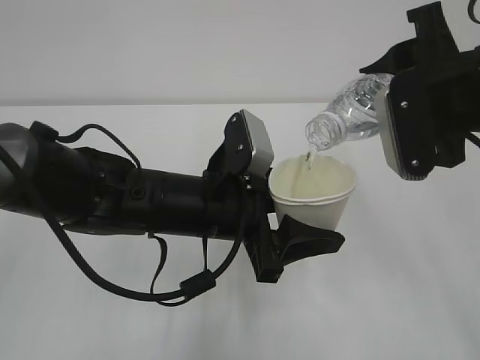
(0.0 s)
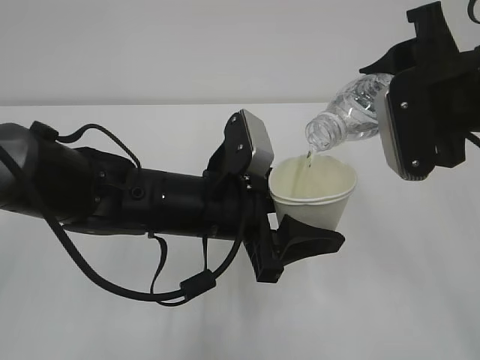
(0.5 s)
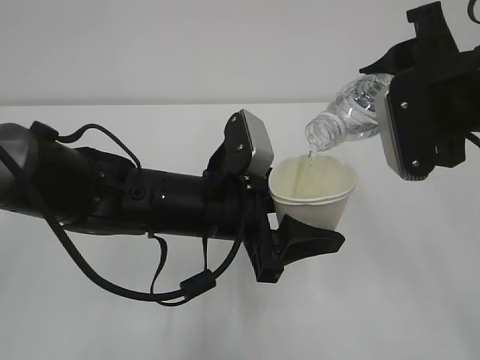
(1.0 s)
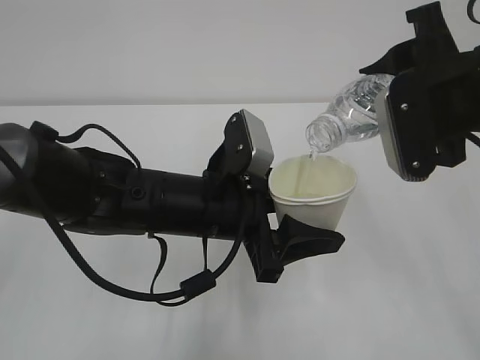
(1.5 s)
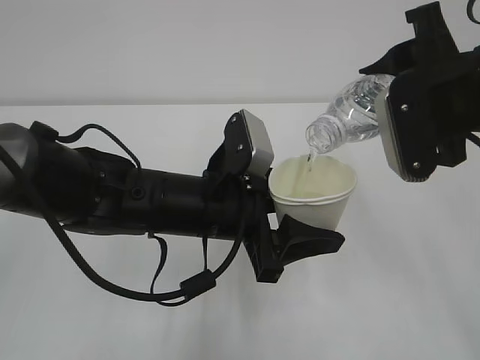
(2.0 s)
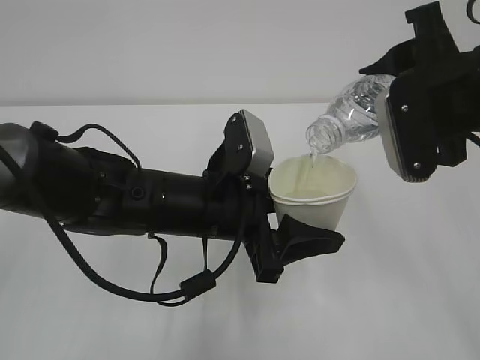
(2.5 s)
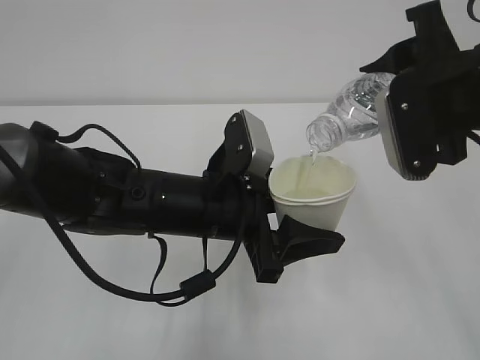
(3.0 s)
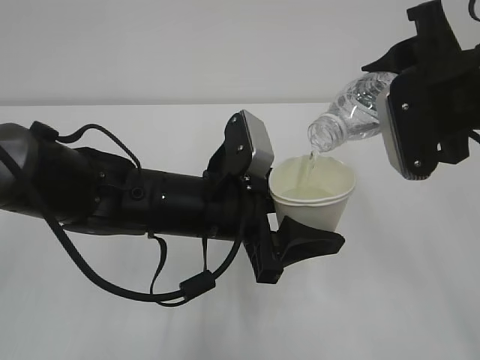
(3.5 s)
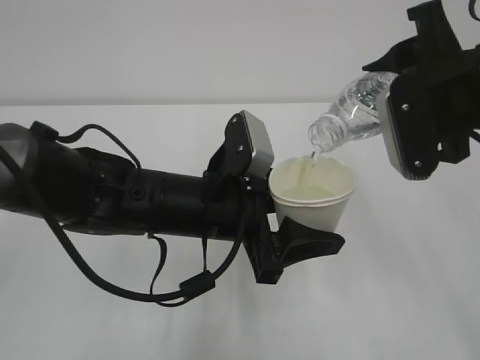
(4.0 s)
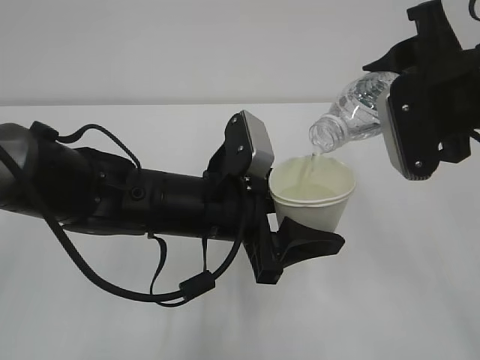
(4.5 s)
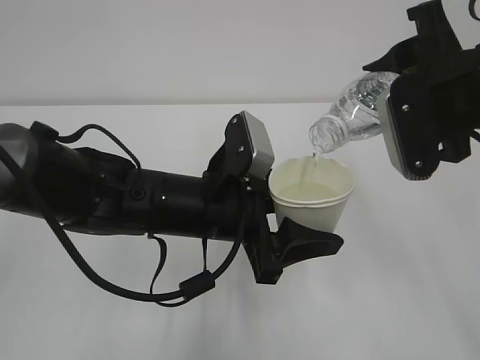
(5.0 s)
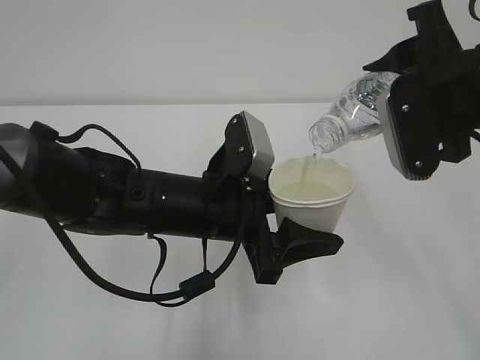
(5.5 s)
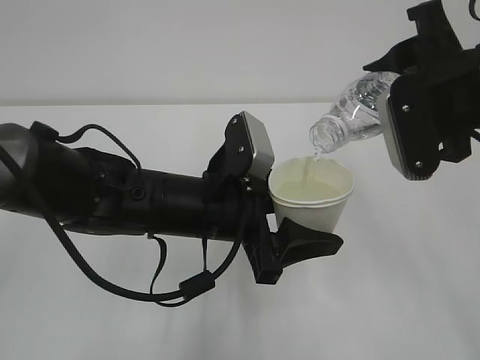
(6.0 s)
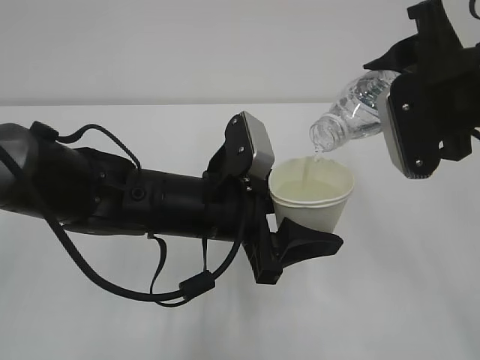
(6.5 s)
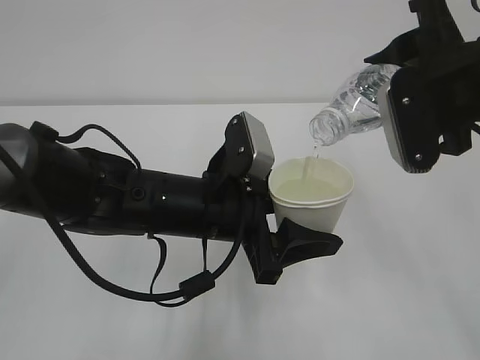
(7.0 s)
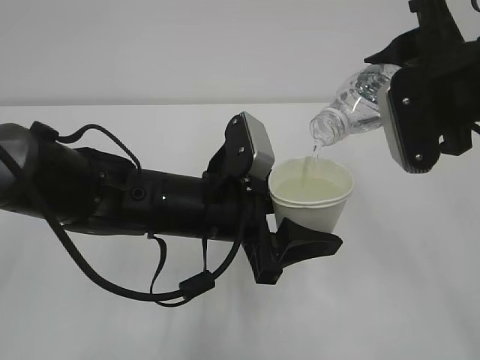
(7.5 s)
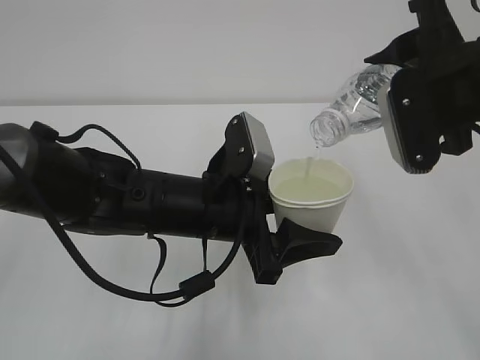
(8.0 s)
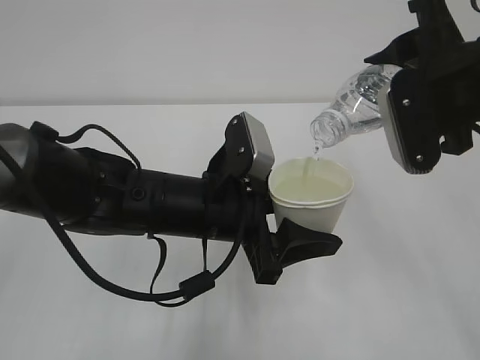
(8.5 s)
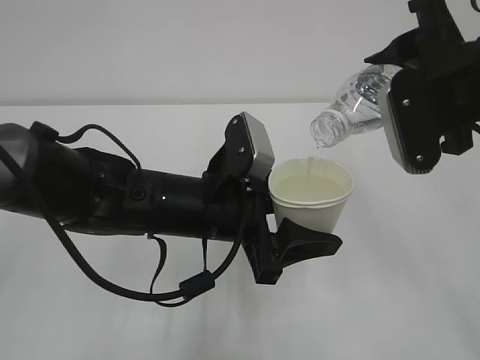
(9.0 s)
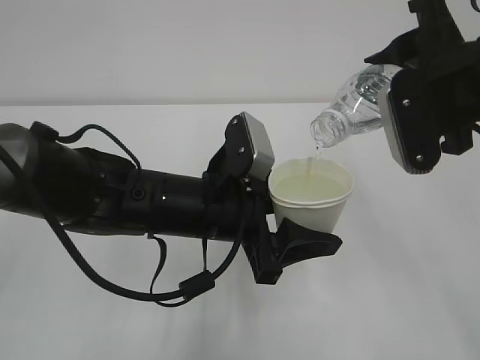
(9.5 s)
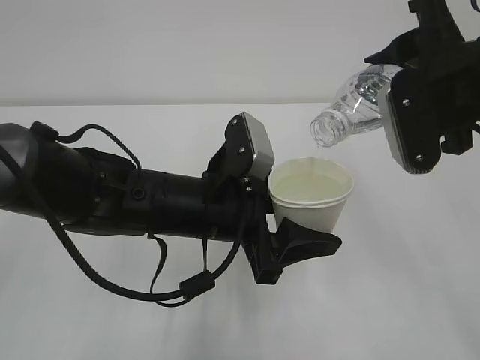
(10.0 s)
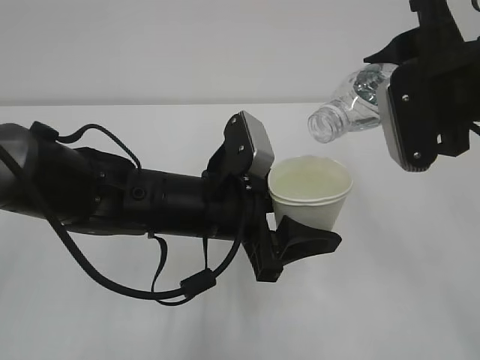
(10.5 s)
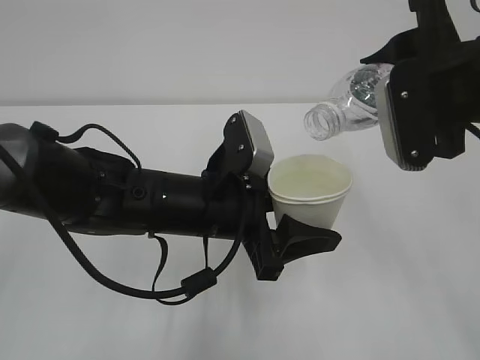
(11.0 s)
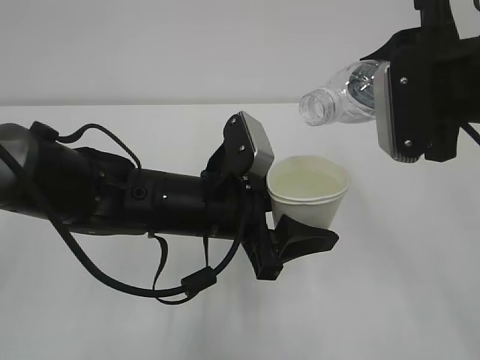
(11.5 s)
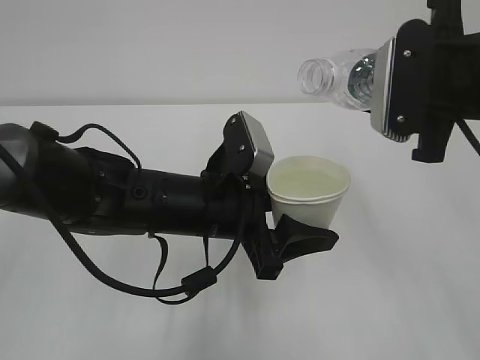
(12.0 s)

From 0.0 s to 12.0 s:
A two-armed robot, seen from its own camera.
From 0.0 s to 6.0 s: Neither gripper changes place.
From 6.0 s to 10.0 s: Both grippers stay about where they are.

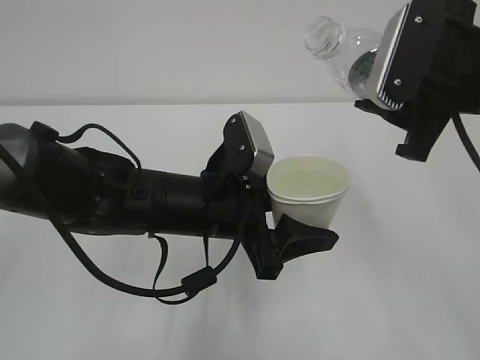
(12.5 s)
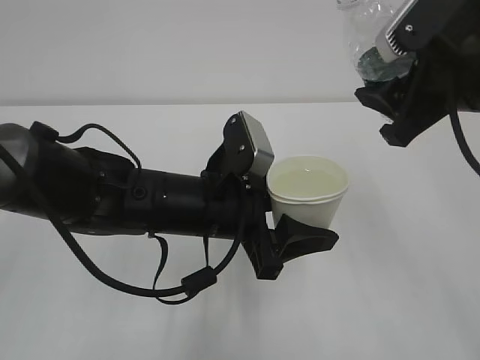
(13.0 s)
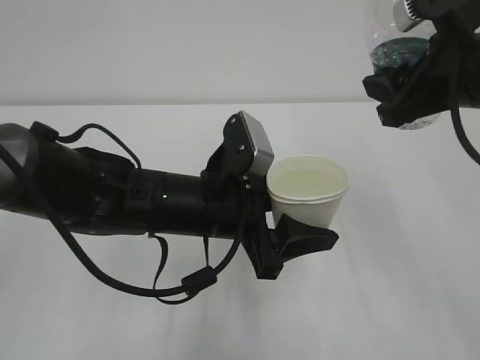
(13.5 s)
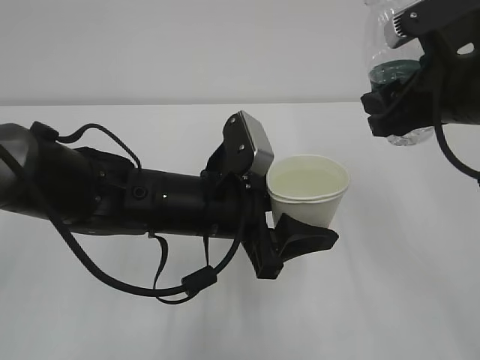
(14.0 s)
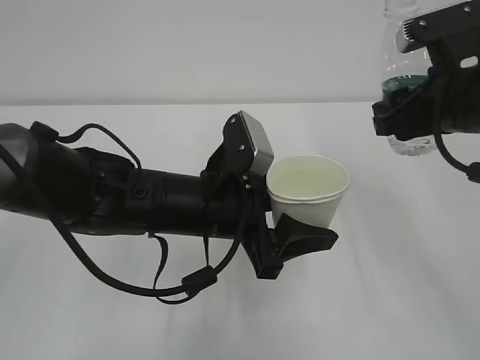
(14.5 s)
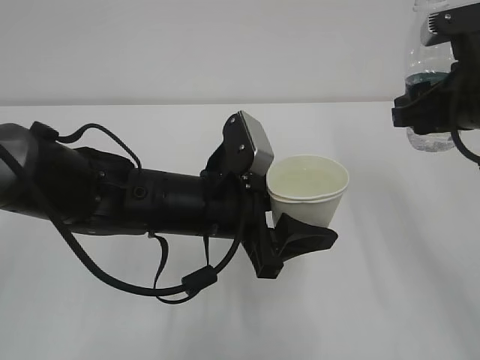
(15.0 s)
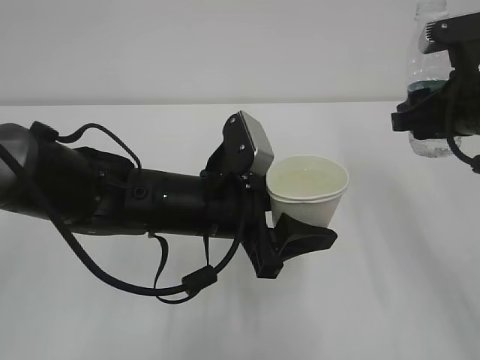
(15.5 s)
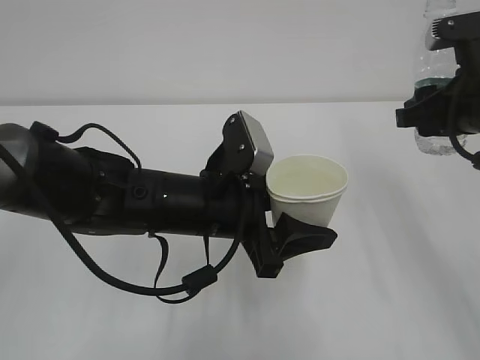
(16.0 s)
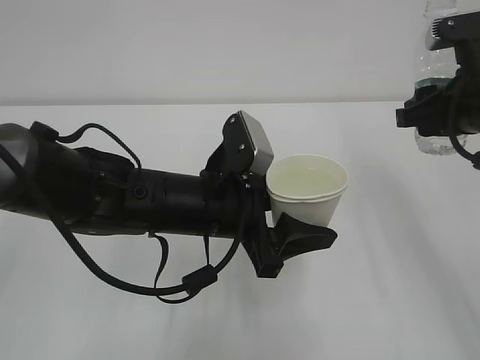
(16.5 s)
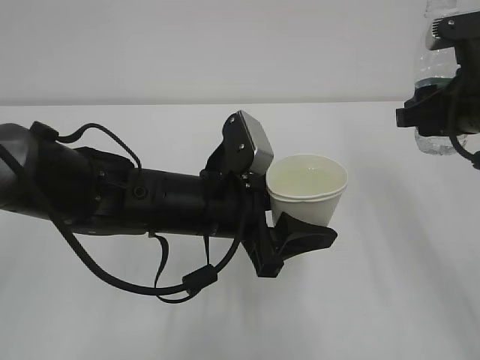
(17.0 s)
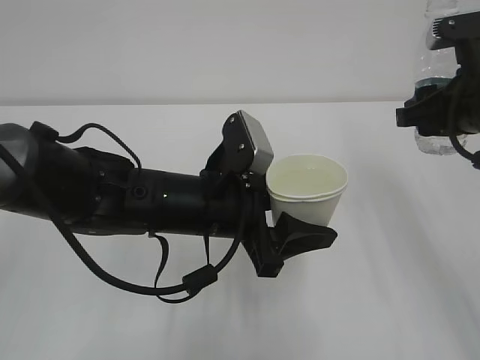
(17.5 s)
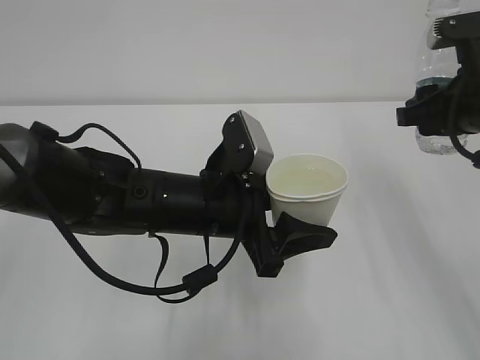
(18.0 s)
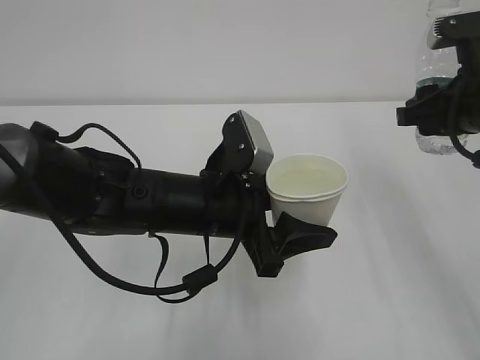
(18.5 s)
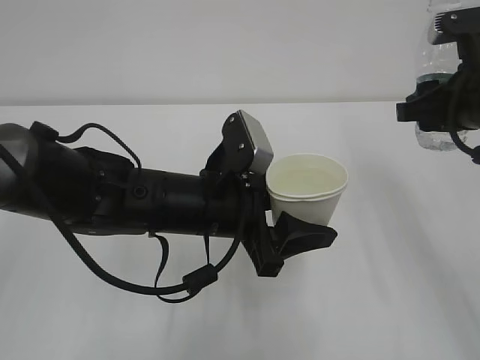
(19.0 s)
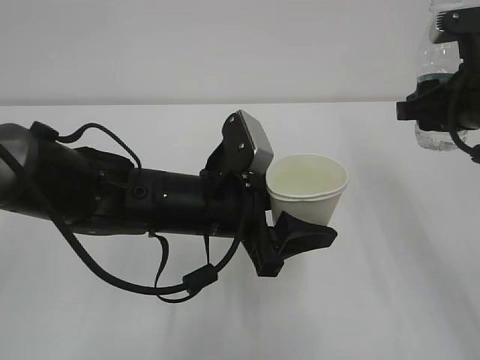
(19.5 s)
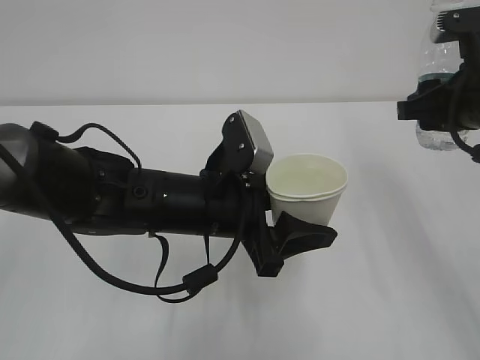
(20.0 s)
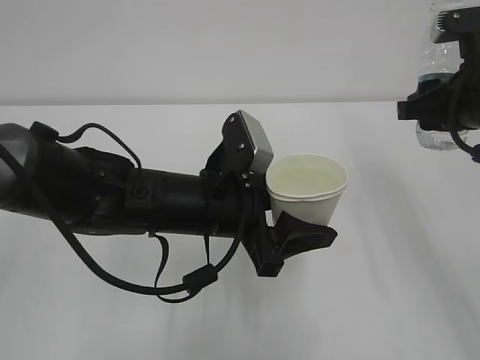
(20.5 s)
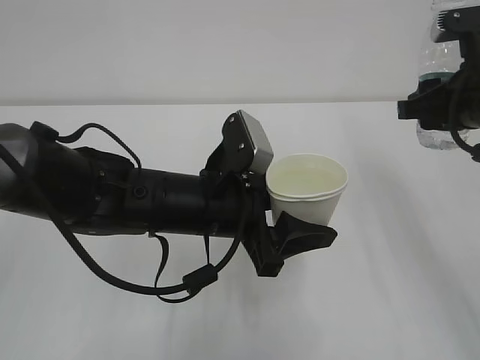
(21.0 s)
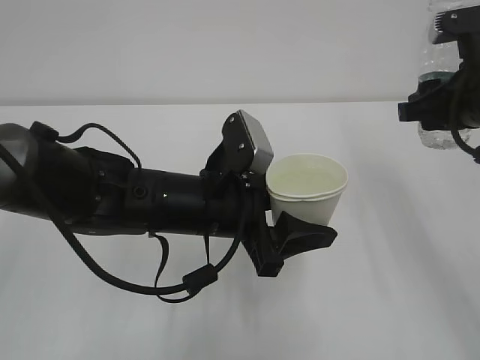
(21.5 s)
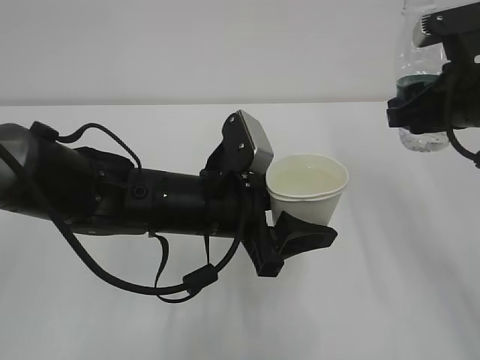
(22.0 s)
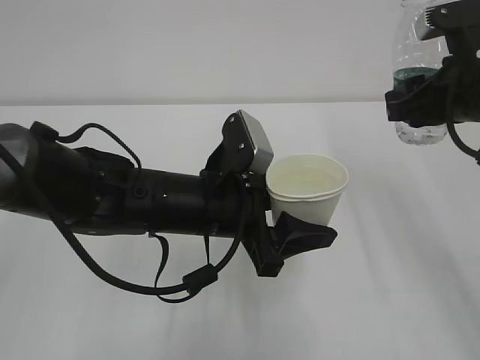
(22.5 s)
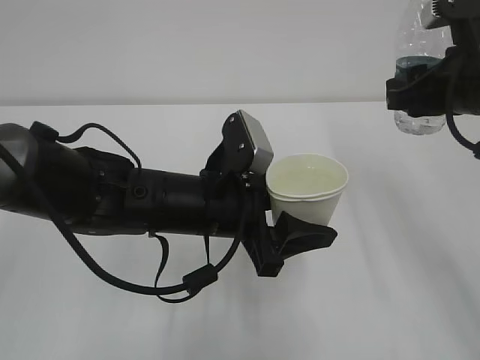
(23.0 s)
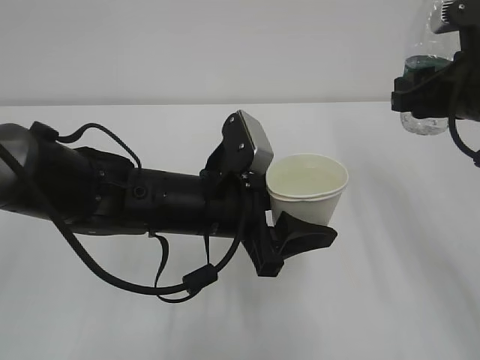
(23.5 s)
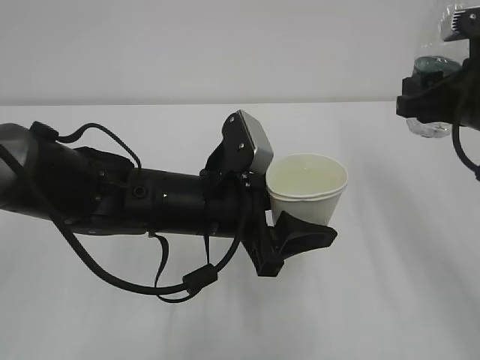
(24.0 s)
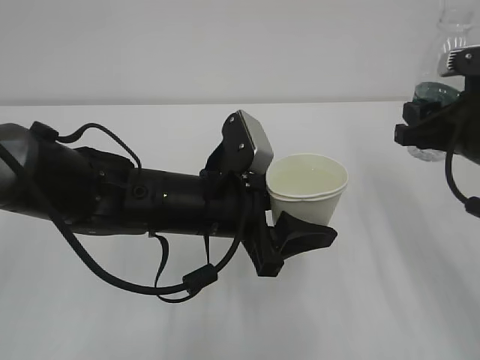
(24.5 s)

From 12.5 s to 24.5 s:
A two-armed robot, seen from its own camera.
From 12.5 s to 14.5 s: The right gripper ends up approximately 5 cm from where it was.
From 14.5 s to 16.5 s: The grippers move only a little.
From 16.5 s to 20.5 s: Both grippers stay about where they are.
From 20.5 s to 22.5 s: The grippers stay close to where they were, moving slightly.
From 22.5 s to 24.5 s: The right gripper shifts by approximately 5 cm.

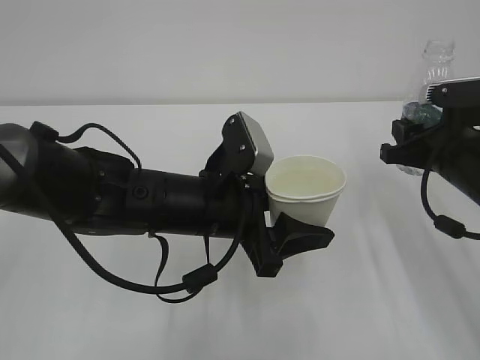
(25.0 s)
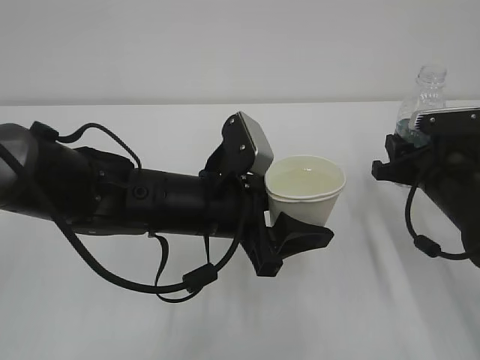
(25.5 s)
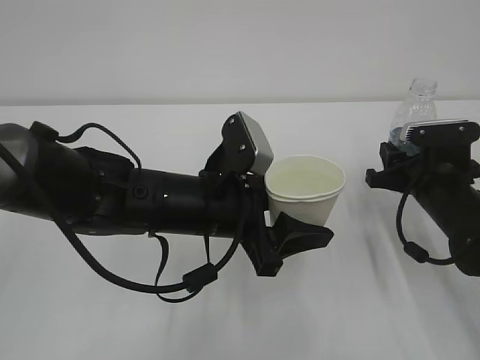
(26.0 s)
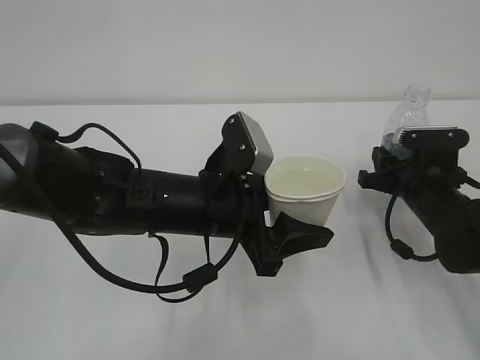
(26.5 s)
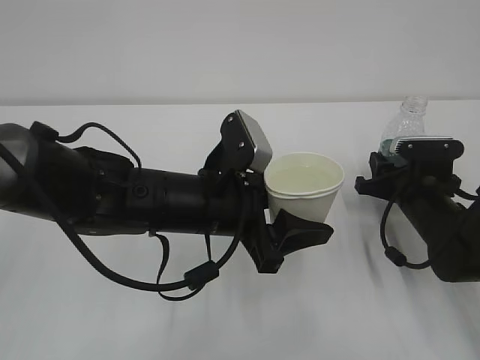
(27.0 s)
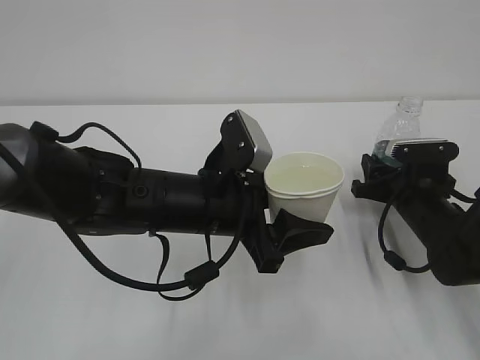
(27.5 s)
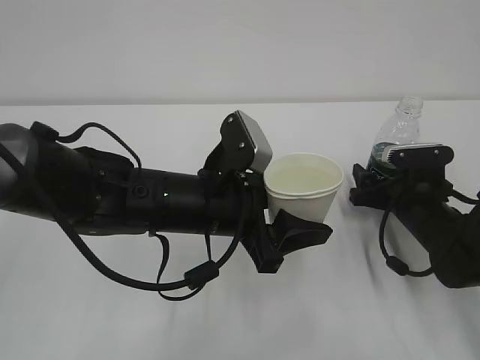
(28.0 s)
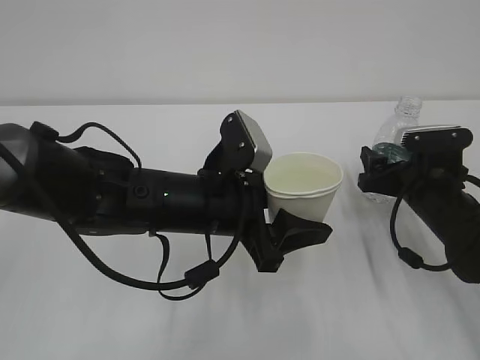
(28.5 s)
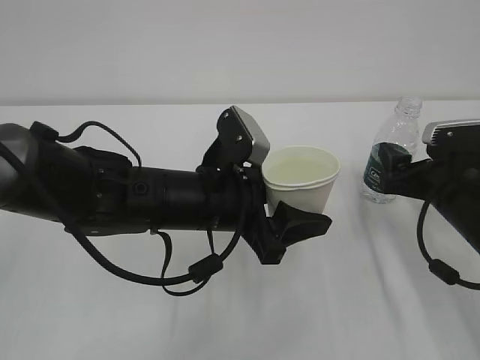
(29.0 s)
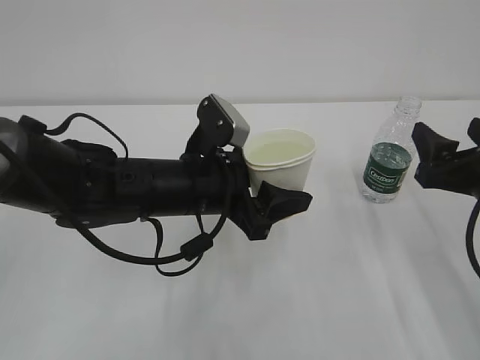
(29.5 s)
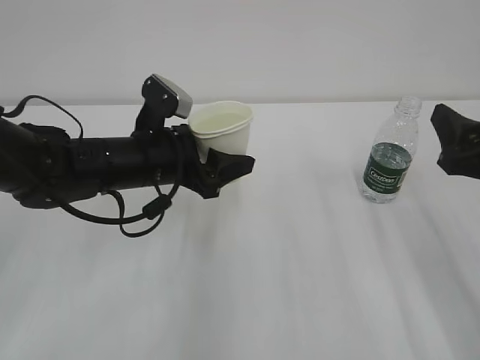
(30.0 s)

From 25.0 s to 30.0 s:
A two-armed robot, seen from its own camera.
From 25.0 s to 27.5 s: The right gripper goes some 10 cm downward.
From 27.5 s to 30.0 s: The right gripper heads upward and backward, covering roughly 20 cm, and opens up; the left gripper shifts some 10 cm to the left and forward.
